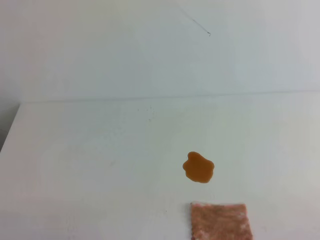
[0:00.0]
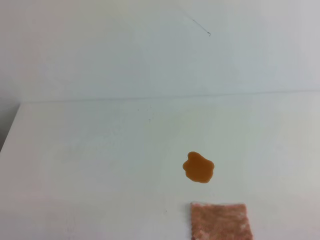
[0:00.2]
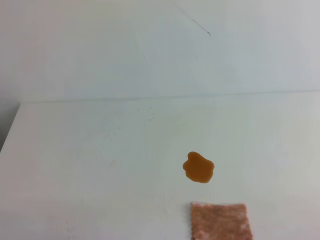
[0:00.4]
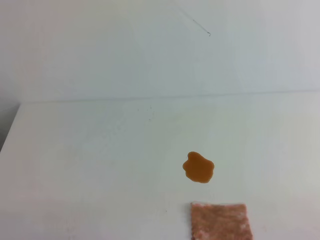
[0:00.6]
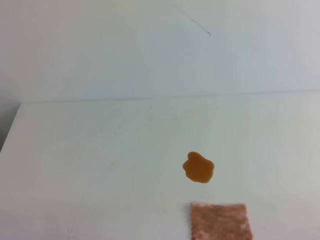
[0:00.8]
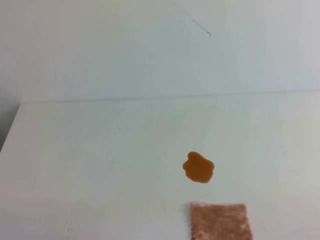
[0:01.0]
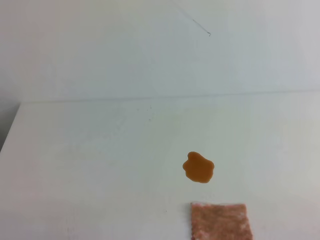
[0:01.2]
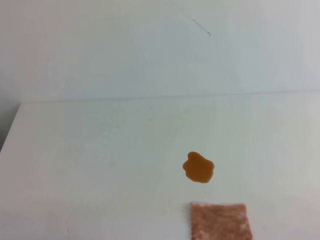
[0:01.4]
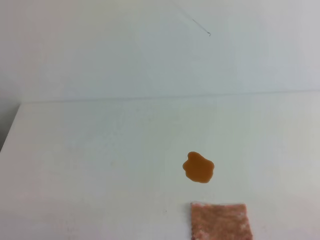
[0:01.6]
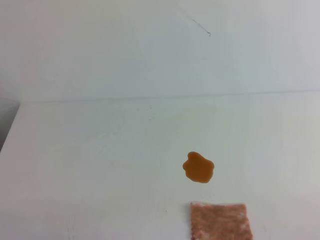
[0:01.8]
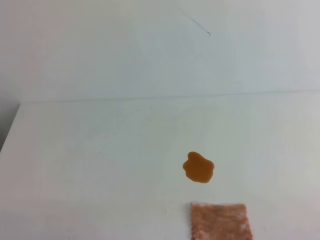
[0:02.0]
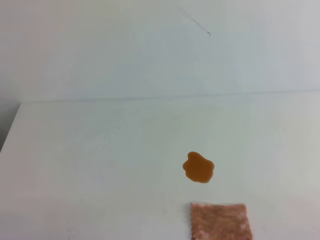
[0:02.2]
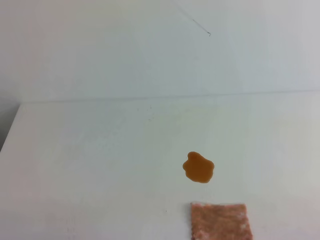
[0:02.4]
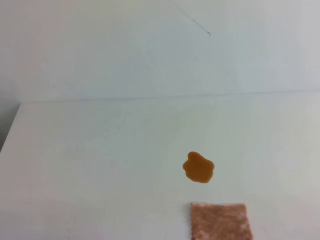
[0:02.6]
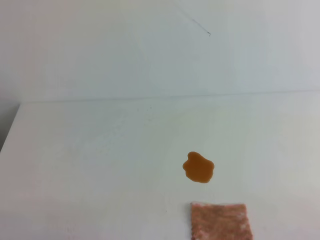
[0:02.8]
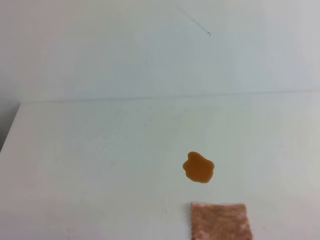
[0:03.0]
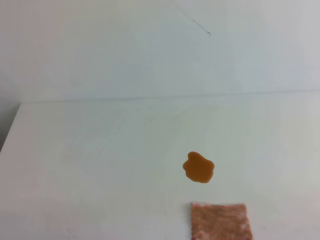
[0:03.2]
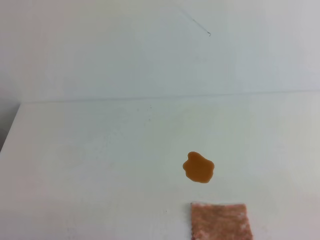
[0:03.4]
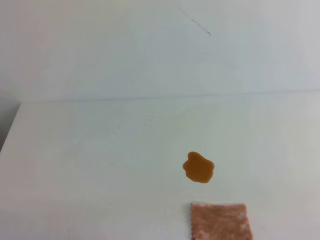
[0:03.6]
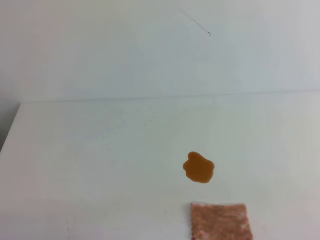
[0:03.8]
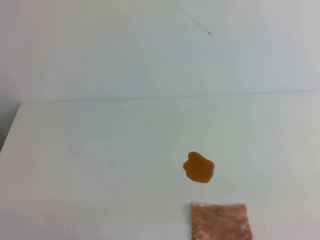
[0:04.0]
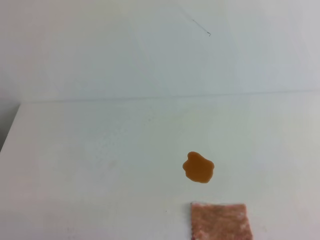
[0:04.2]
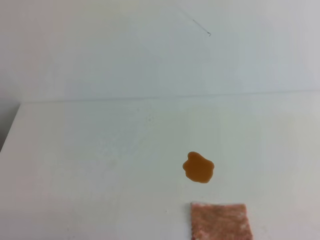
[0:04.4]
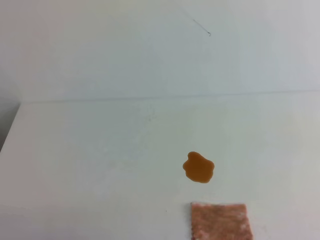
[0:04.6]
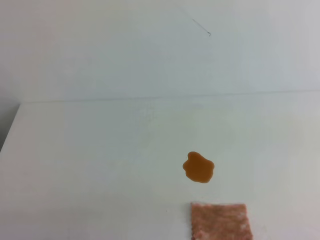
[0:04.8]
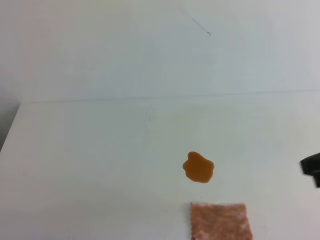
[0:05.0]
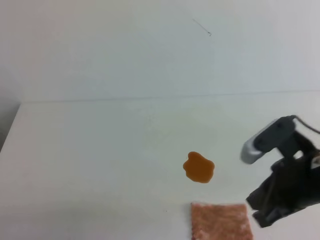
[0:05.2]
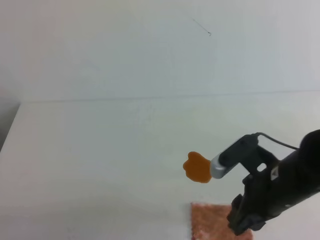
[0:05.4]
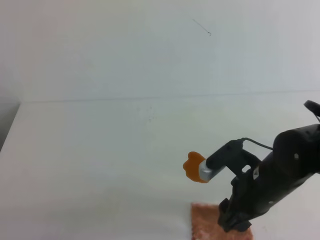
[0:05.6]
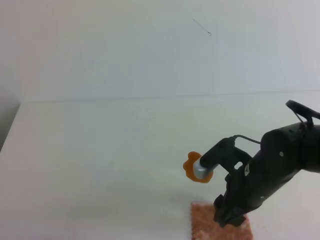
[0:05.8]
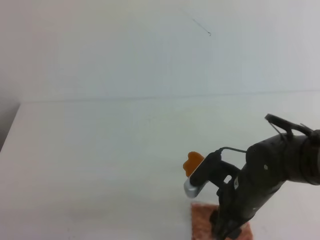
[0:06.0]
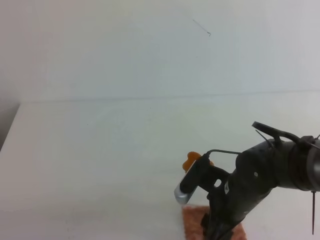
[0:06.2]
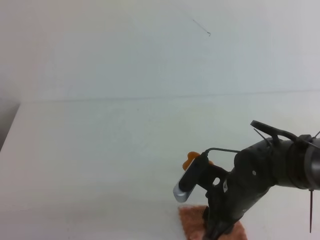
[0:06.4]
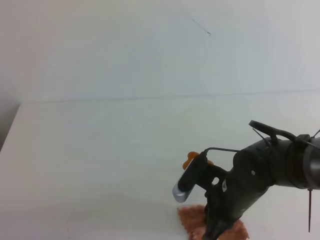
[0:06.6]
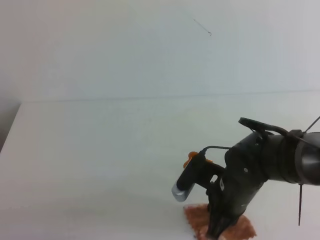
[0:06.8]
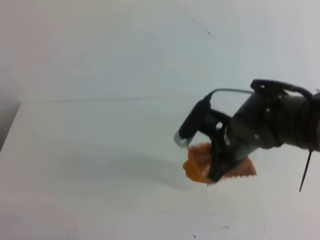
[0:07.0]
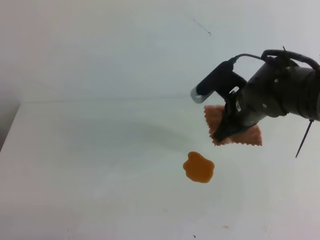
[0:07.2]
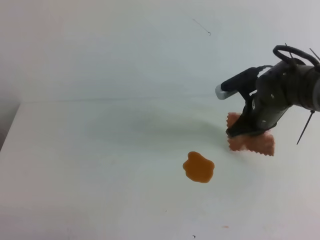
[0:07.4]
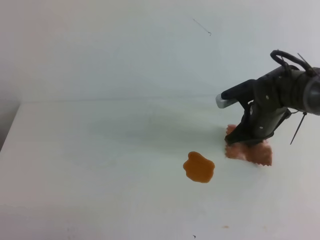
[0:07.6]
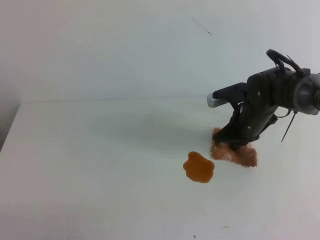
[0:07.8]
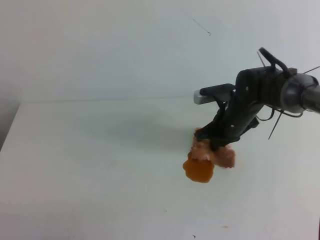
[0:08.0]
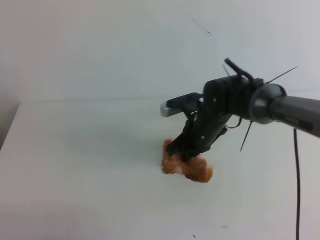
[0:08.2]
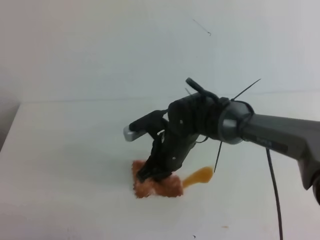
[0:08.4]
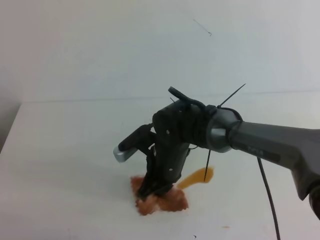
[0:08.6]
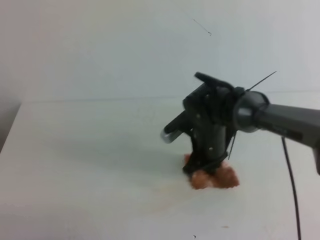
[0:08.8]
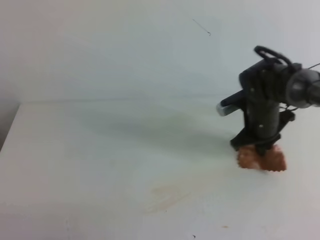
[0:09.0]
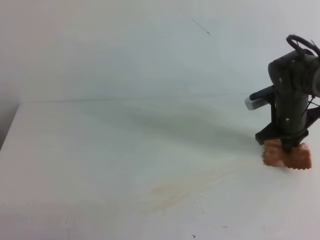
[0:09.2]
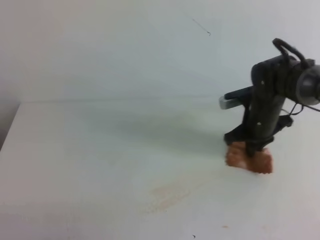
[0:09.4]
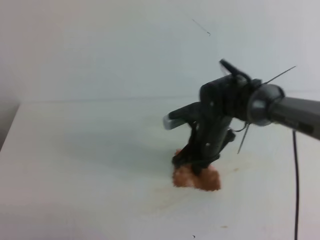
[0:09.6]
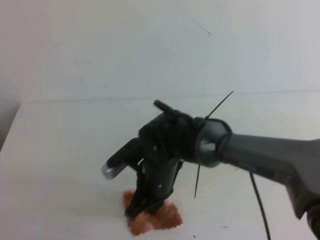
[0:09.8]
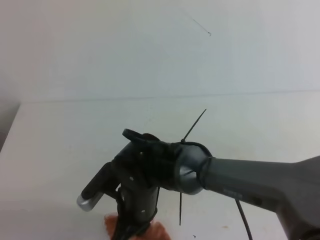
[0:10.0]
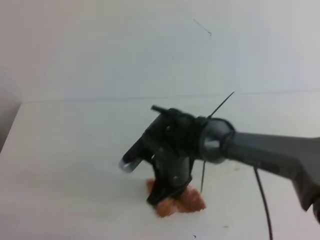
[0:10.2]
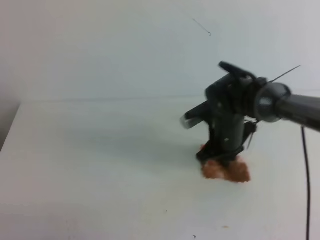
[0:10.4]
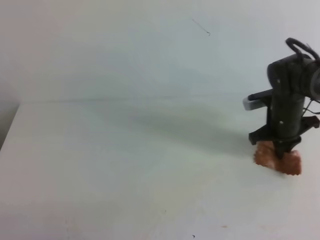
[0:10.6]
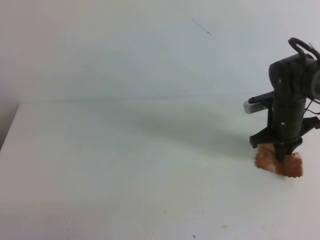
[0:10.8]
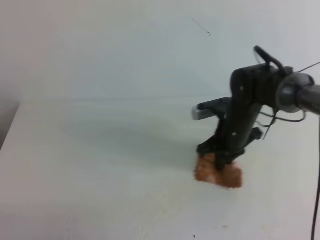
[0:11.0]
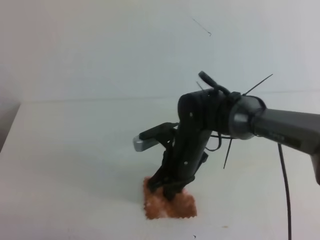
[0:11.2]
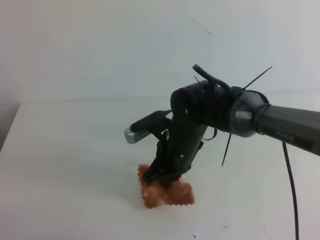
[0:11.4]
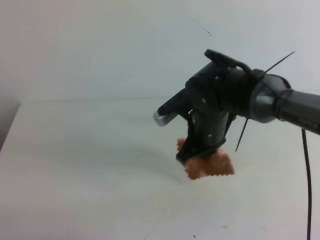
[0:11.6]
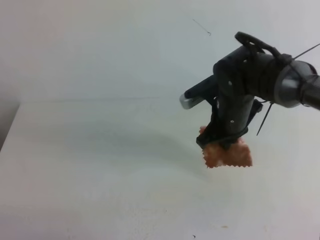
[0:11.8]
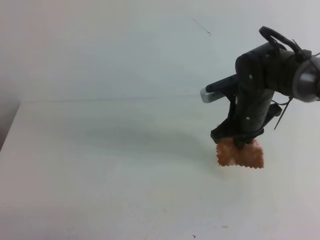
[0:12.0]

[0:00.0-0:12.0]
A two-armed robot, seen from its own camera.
0:00.0 to 0:03.0: The two grippers keep their place.
0:04.4 to 0:06.0: The right gripper heads to the left, downward and forward, covering roughly 35 cm, and opens up.
0:06.0 to 0:07.6: The right gripper goes roughly 15 cm forward, and closes its fingers.
0:07.6 to 0:09.0: The right gripper goes to the left and returns, about 15 cm each way.
0:09.0 to 0:10.4: The right gripper goes to the left and returns, roughly 20 cm each way.
0:10.4 to 0:12.0: The right gripper goes left and right, roughly 15 cm each way, reversing 2 times.

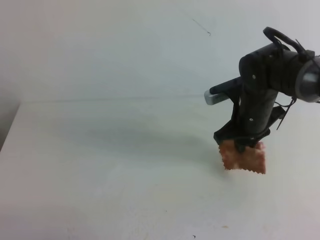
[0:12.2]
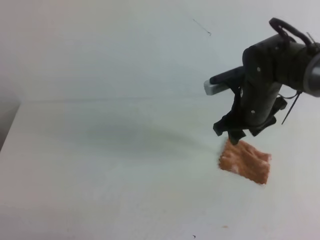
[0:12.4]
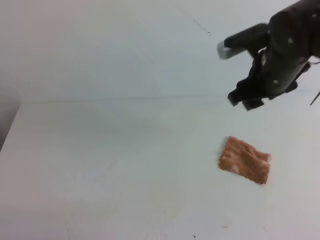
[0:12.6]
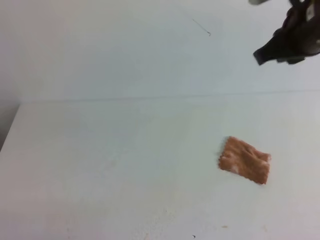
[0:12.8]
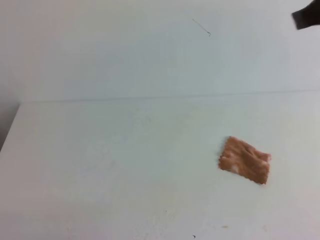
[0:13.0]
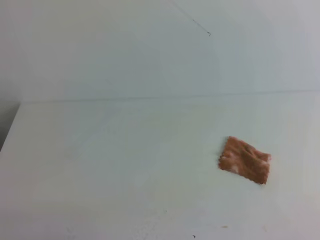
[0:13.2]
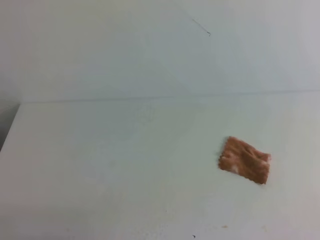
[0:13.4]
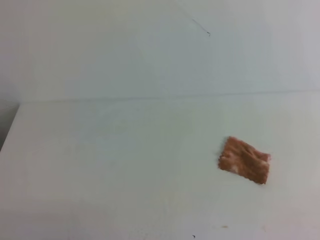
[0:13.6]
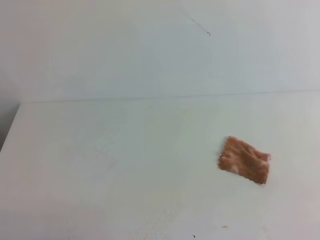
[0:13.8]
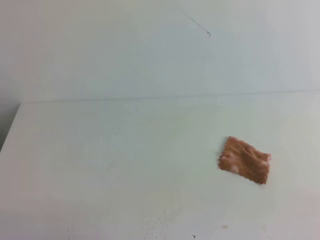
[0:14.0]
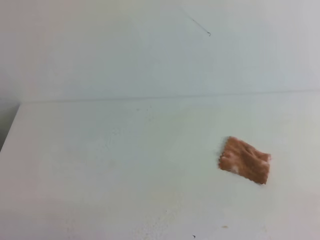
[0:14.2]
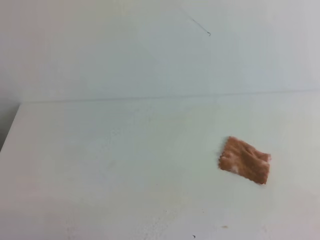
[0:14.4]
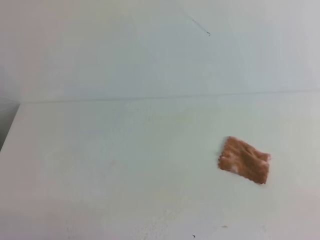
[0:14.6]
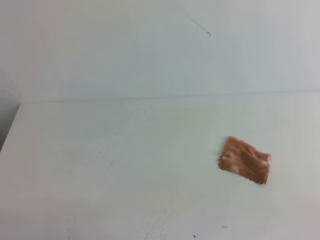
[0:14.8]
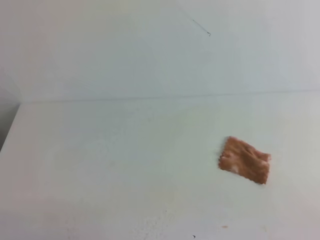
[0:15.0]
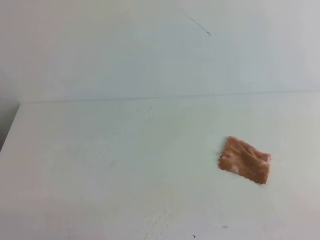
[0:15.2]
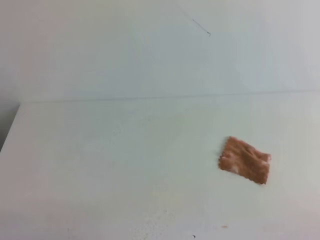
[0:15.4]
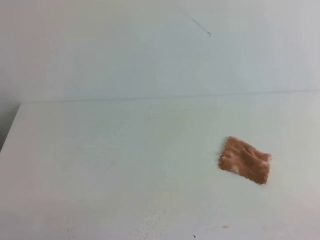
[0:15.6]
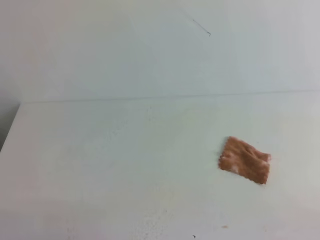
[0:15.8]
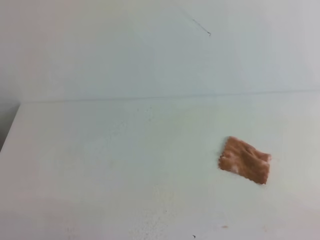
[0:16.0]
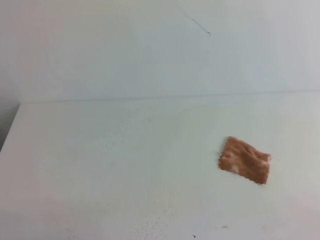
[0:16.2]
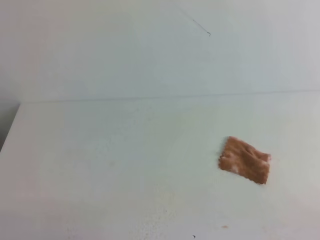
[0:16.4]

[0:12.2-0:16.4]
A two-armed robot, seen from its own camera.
0:12.2 to 0:13.6: The right gripper heads backward, to the right and upward, covering roughly 35 cm, and closes up.
